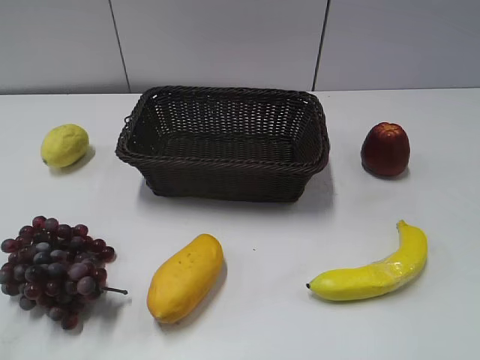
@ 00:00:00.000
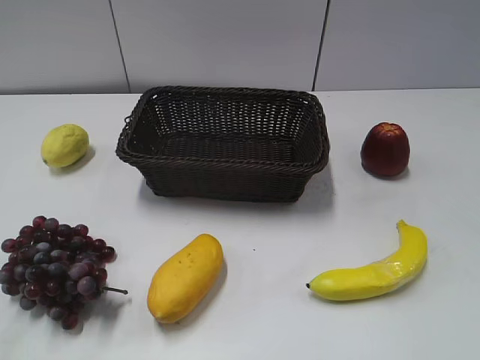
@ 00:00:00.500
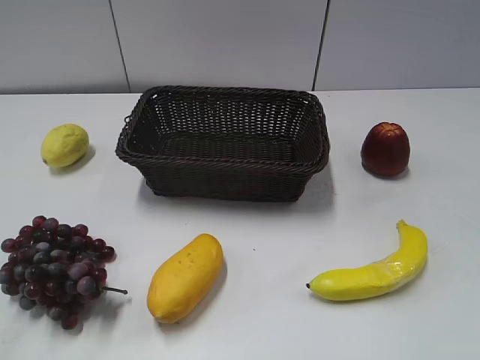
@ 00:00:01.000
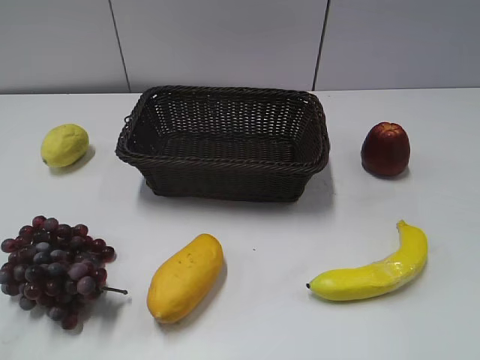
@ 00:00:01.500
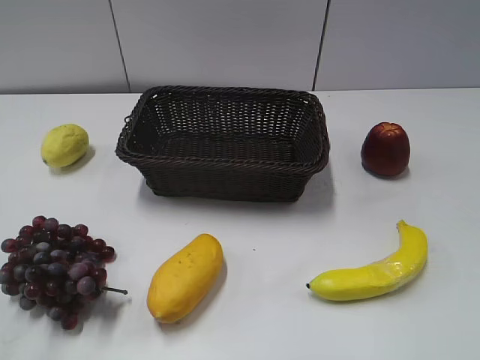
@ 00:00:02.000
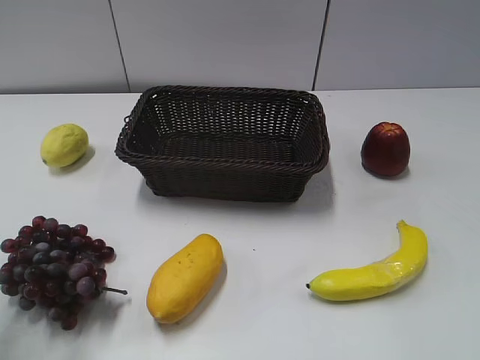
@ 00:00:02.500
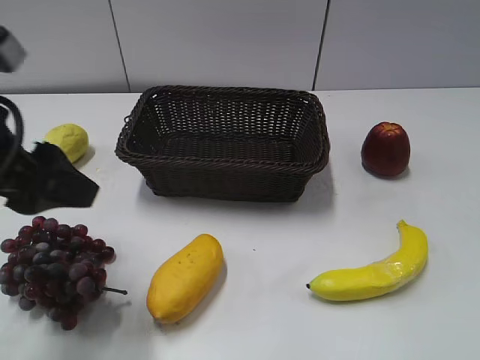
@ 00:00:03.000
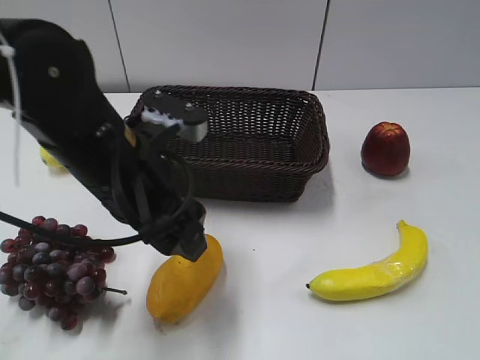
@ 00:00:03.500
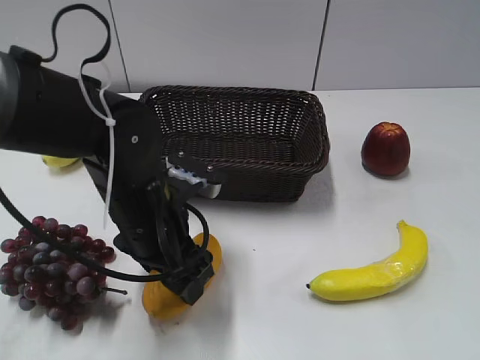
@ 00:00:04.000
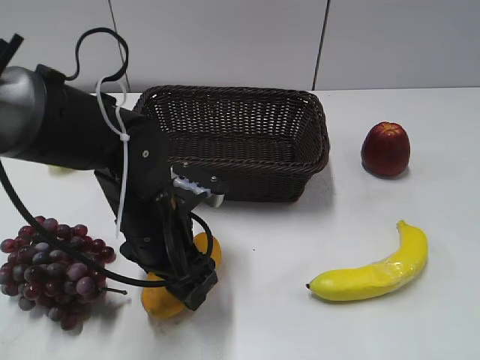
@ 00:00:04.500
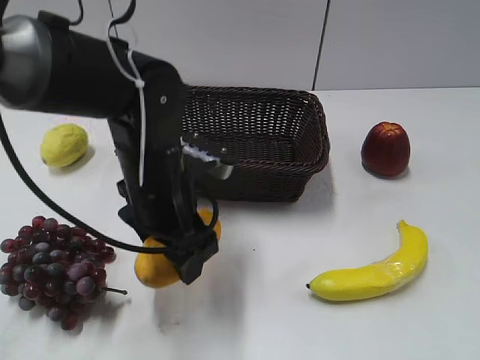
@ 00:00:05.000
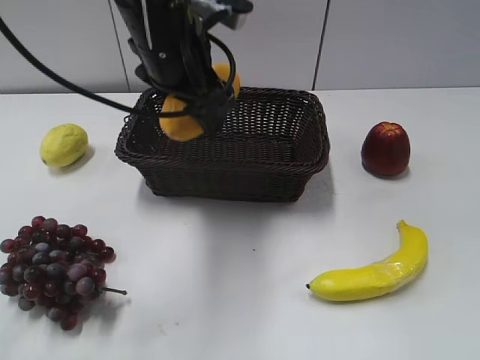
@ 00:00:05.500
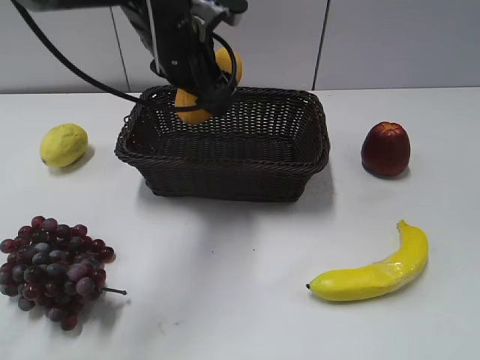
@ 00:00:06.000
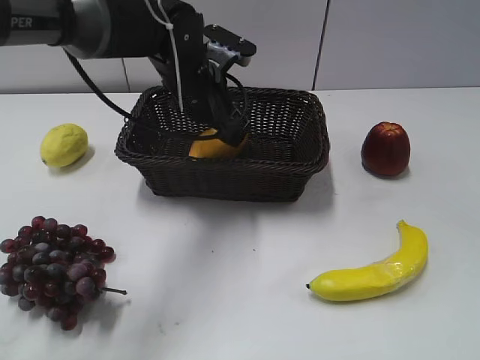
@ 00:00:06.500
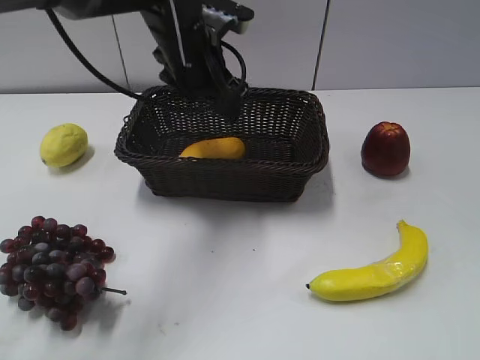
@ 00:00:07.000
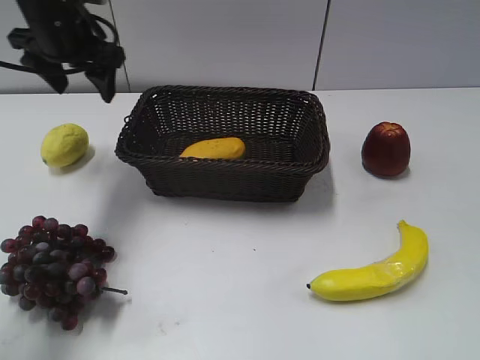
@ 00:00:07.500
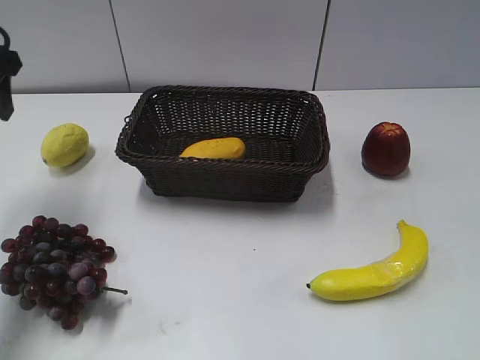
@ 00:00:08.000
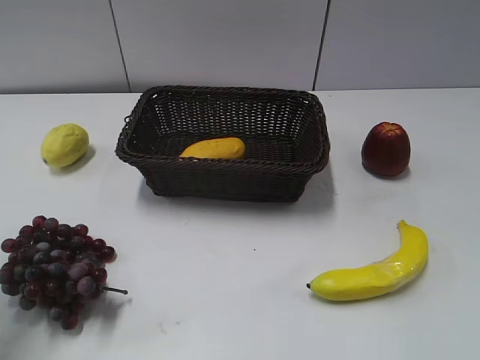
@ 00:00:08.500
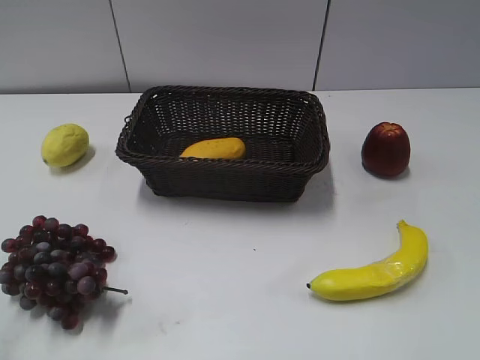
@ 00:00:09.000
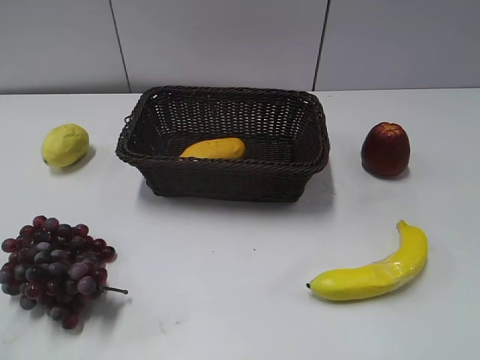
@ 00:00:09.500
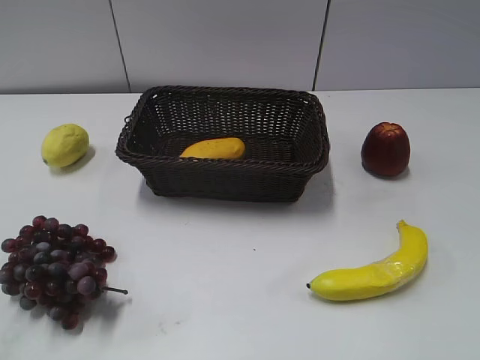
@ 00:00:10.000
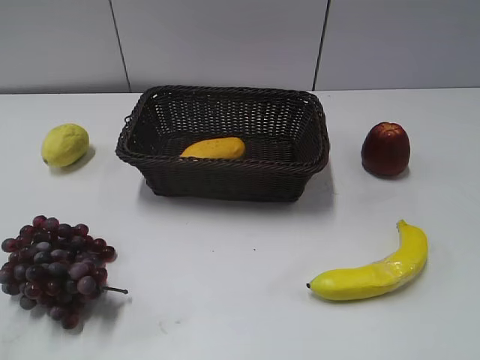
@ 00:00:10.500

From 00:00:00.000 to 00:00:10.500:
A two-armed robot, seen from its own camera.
Step, from 00:00:03.000 to 00:00:04.500: Grasp the mango with left gripper.
Step, from 00:00:05.000 to 00:00:06.500: Place the mango in the basket with left gripper.
From 00:00:02.000 to 00:00:04.000: The left gripper shifts approximately 35 cm downward, to the right and forward.
From 00:00:04.000 to 00:00:06.500: The left gripper travels forward by roughly 15 cm, and opens.
From 00:00:06.500 to 00:00:08.500: The left gripper travels to the left, backward and upward by some 35 cm, and closes its fingers.
From 00:00:08.500 to 00:00:10.500: The left gripper goes some 20 cm backward.
